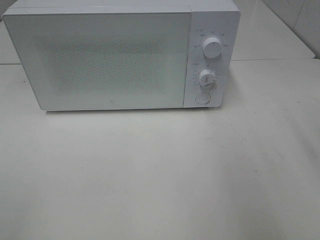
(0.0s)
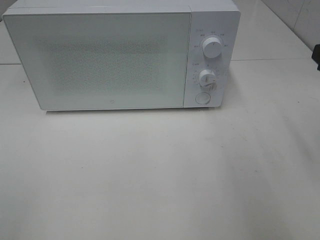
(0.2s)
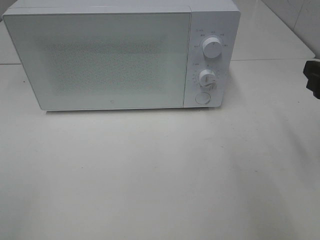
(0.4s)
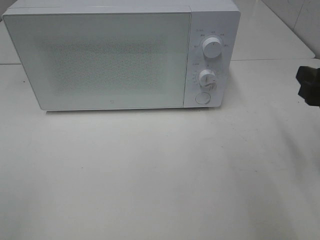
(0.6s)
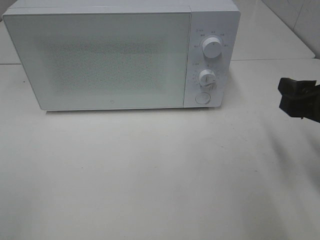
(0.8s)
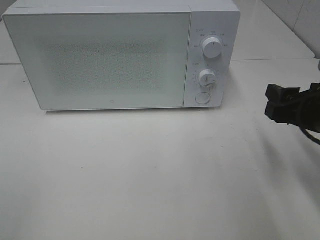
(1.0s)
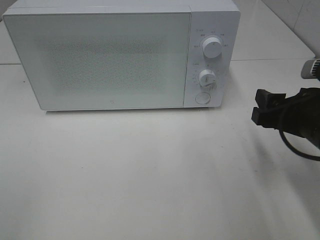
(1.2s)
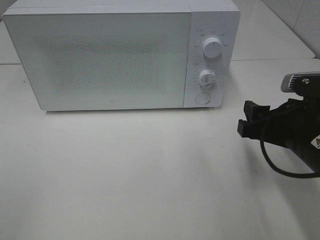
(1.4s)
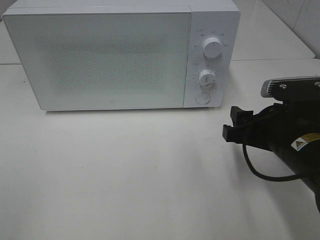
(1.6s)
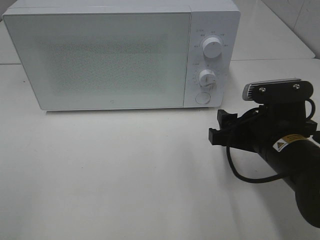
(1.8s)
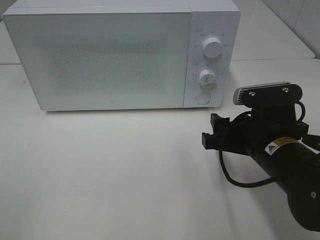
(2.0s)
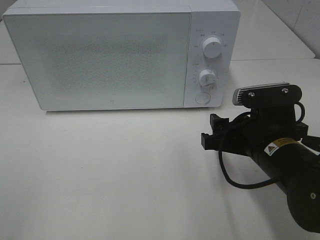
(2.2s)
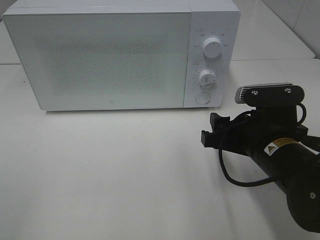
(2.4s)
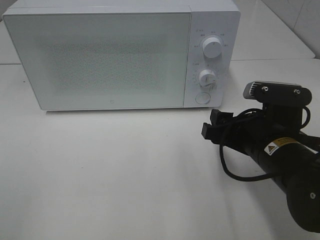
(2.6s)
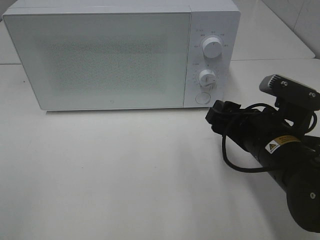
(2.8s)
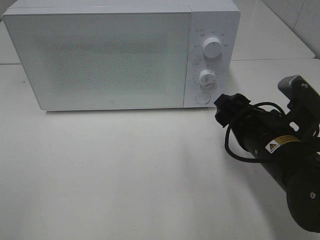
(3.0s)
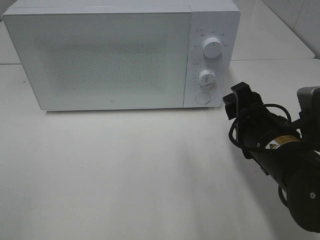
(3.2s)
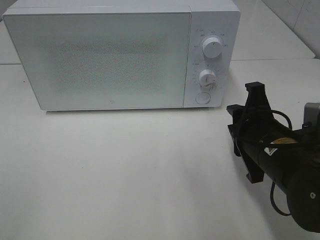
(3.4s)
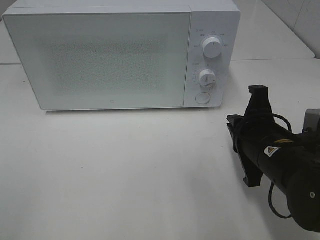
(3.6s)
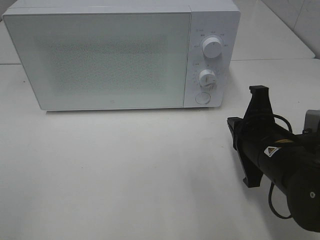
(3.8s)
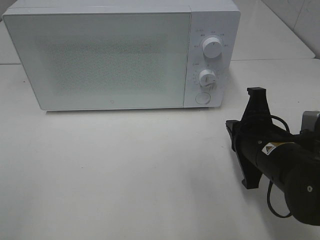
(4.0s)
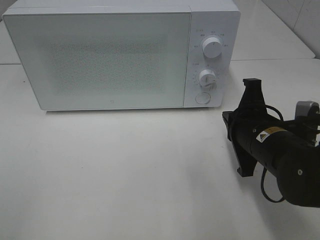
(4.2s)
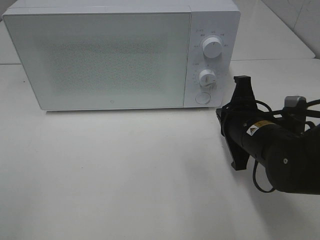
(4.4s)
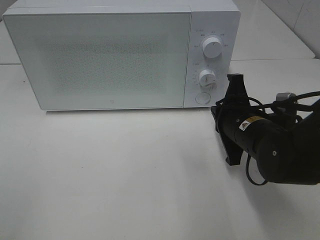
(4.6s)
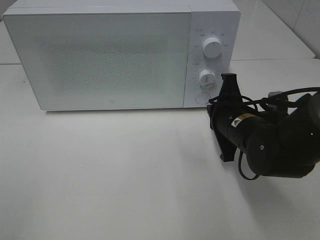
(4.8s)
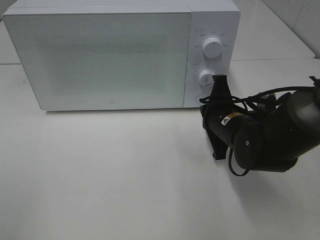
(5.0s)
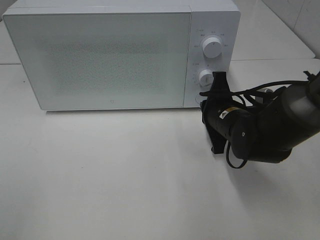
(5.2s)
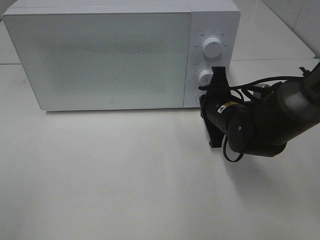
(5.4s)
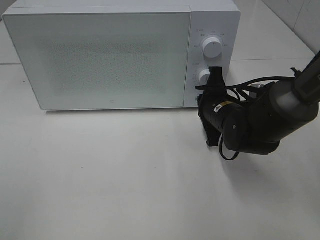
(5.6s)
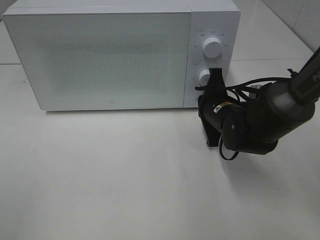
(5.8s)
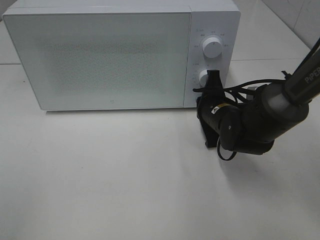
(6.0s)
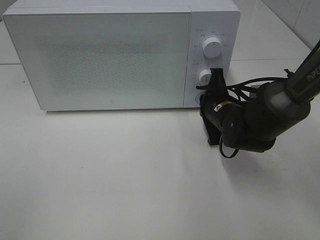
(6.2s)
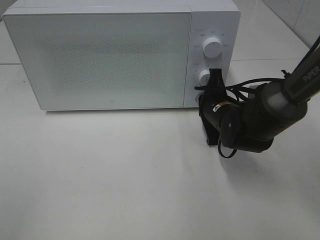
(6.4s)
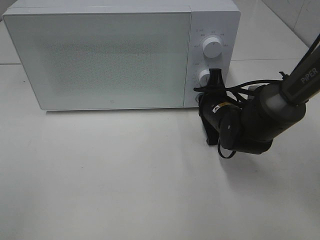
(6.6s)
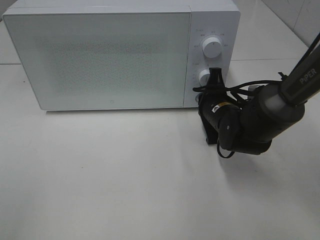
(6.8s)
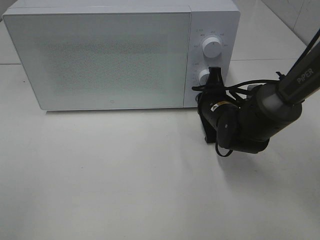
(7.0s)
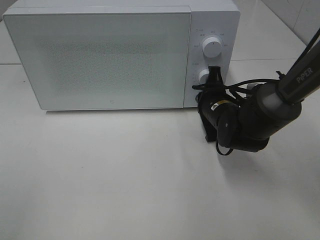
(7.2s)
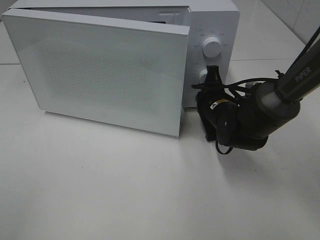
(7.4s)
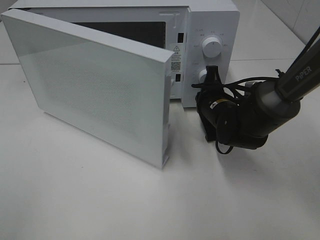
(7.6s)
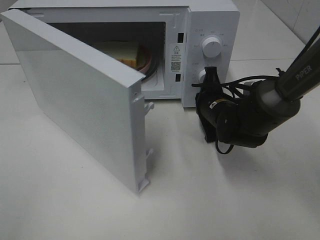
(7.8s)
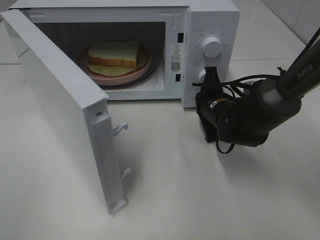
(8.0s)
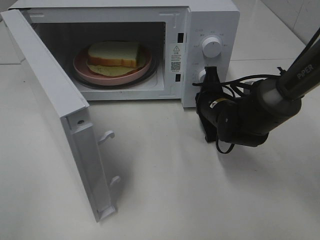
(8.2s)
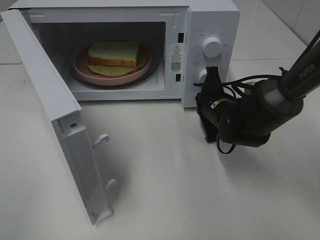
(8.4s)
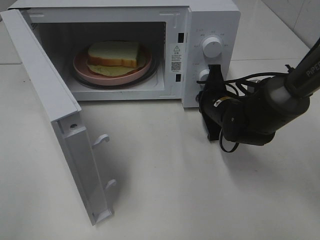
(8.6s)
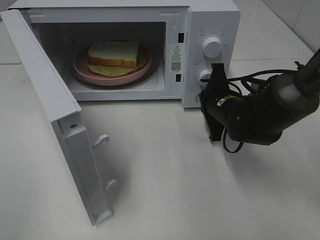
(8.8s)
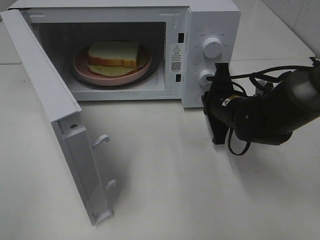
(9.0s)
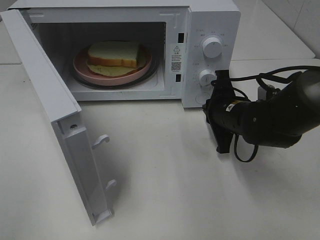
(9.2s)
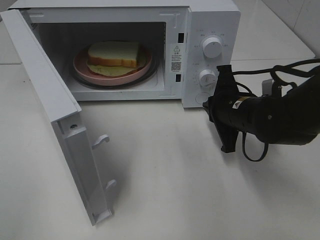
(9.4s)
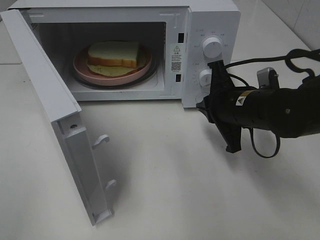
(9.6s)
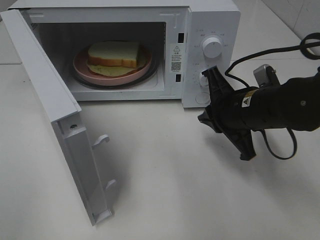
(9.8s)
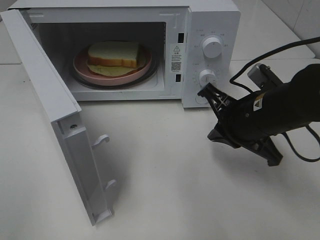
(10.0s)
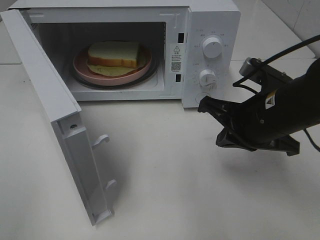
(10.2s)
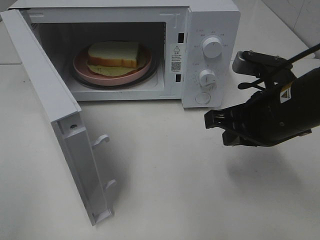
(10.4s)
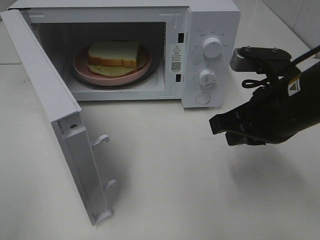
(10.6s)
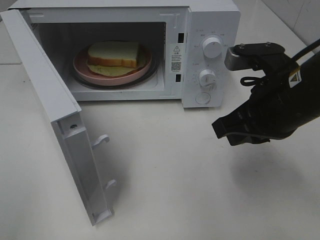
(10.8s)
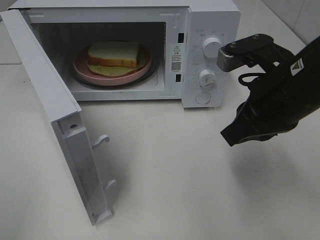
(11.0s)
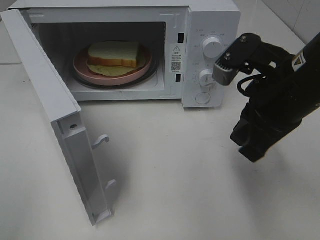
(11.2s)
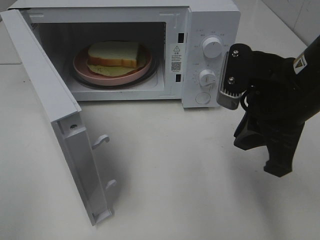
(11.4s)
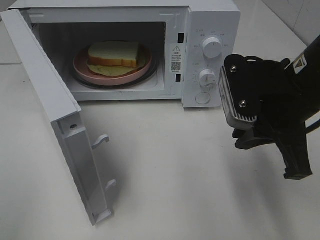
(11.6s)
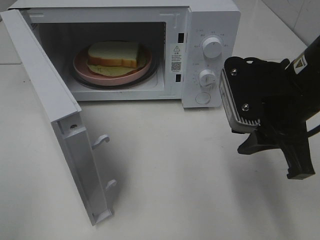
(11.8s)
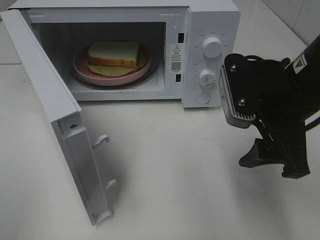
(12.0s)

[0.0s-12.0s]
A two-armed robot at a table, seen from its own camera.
Task of the whole recording: Heat Sandwich.
Step, 0.0s to 9.2s: Right hand: press the switch.
0.0s to 1.6s: The right gripper travels downward and to the left by some 15 cm.
3.0s to 4.4s: The right gripper closes.
4.4s to 6.0s: The right gripper shifts roughly 10 cm forward.
6.0s to 7.6s: There are only small adjustments of the grippers.
9.0s to 10.4s: The right gripper is displaced backward and upward by approximately 15 cm.
10.4s to 12.0s: The right gripper opens.

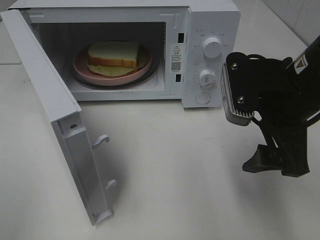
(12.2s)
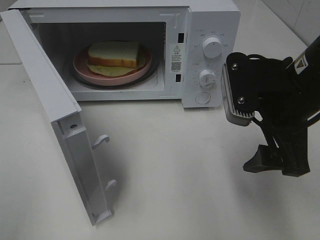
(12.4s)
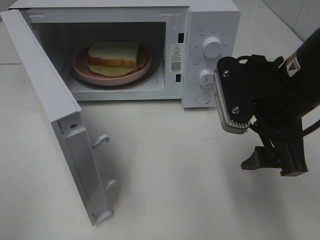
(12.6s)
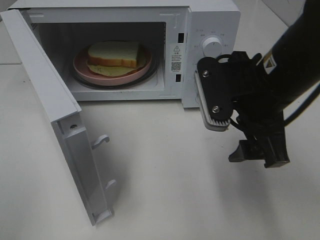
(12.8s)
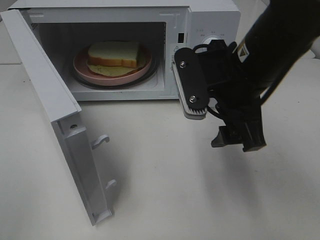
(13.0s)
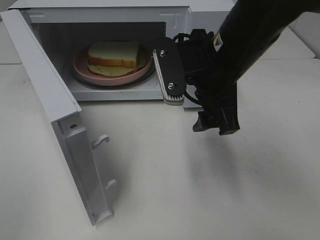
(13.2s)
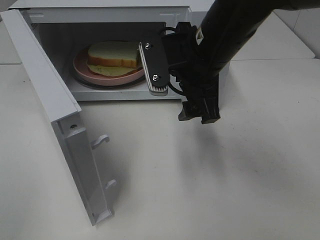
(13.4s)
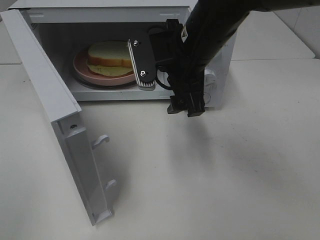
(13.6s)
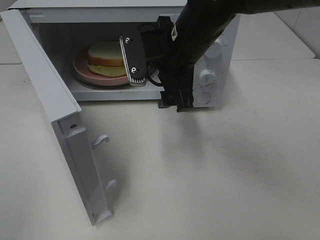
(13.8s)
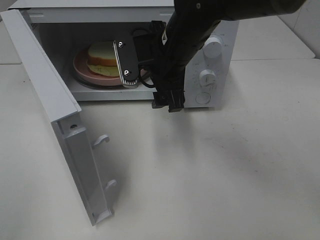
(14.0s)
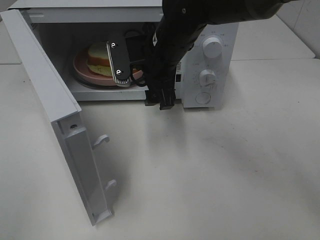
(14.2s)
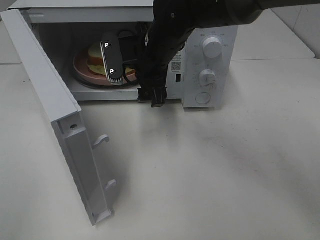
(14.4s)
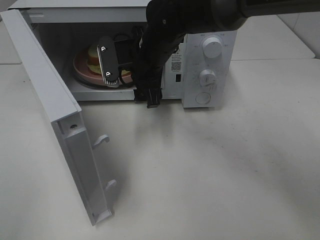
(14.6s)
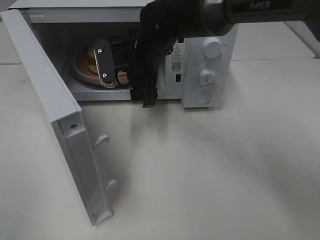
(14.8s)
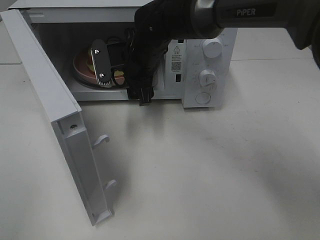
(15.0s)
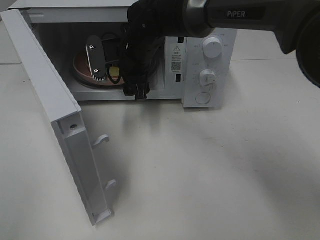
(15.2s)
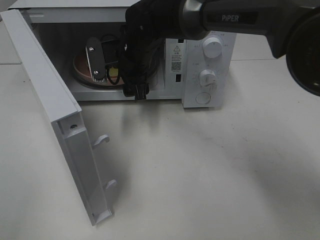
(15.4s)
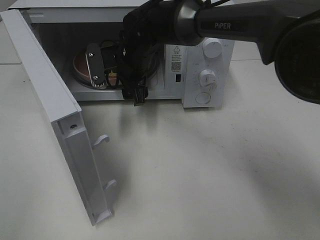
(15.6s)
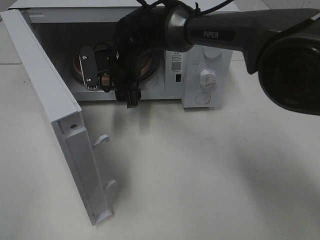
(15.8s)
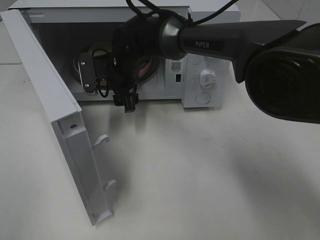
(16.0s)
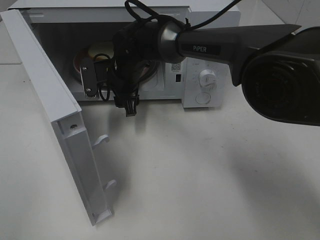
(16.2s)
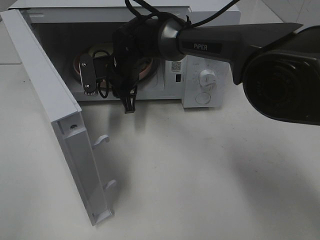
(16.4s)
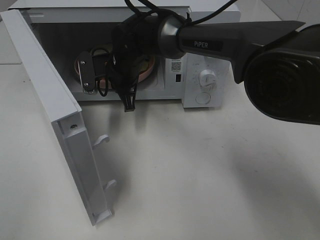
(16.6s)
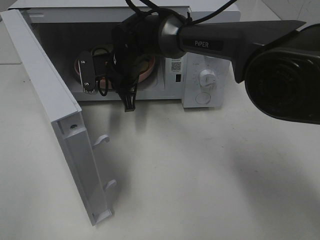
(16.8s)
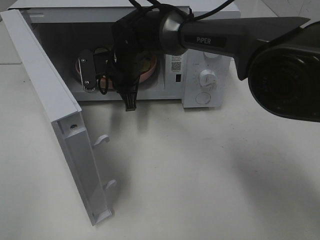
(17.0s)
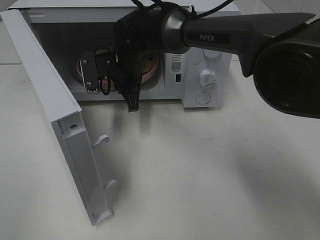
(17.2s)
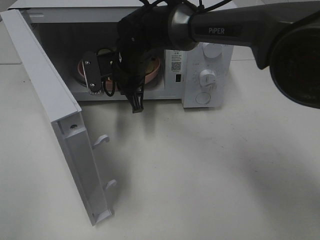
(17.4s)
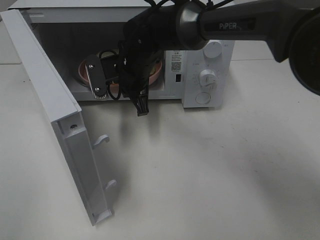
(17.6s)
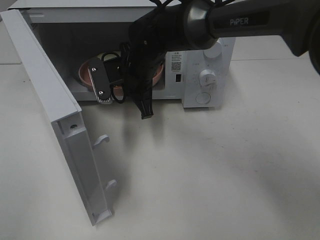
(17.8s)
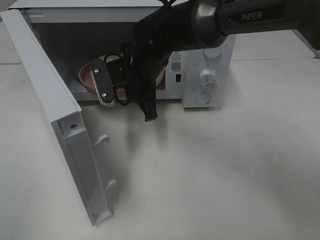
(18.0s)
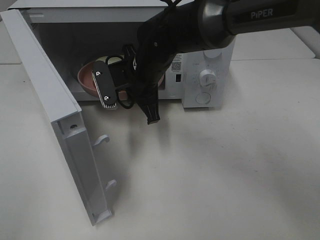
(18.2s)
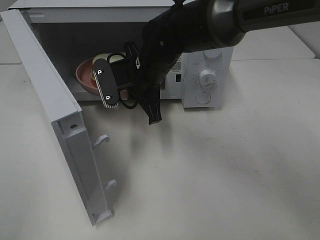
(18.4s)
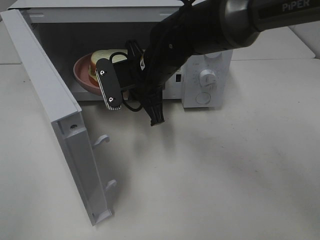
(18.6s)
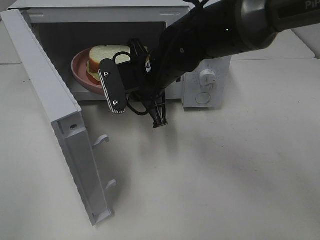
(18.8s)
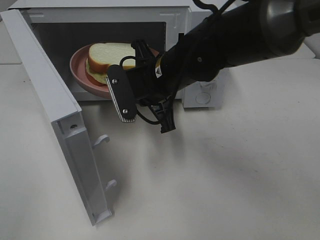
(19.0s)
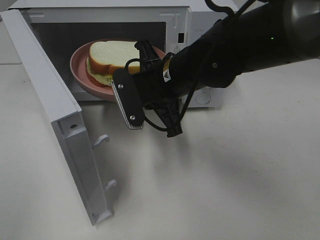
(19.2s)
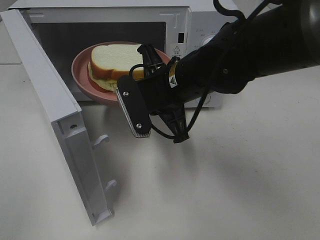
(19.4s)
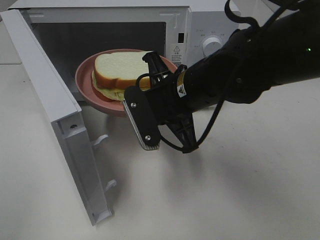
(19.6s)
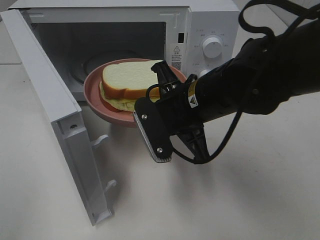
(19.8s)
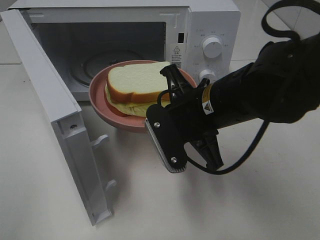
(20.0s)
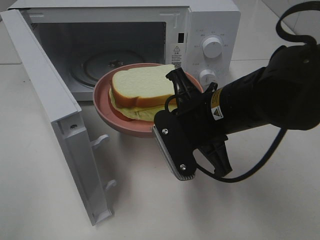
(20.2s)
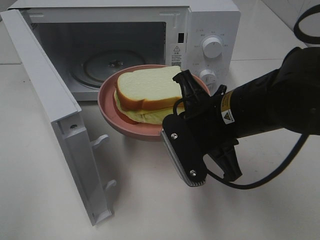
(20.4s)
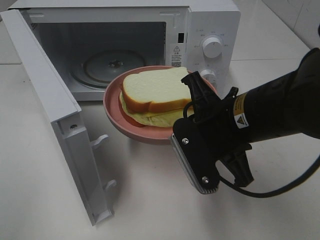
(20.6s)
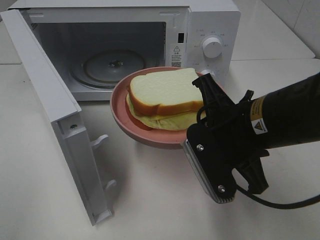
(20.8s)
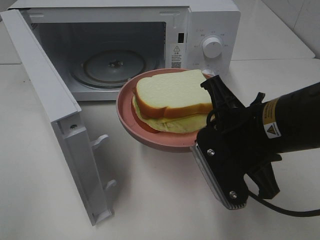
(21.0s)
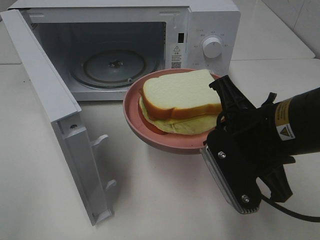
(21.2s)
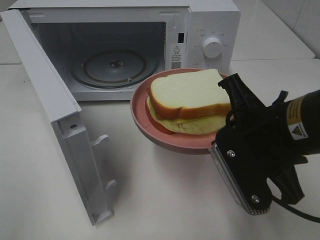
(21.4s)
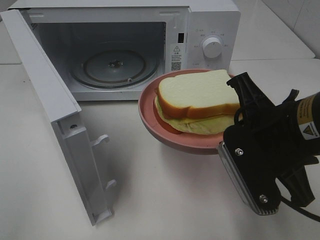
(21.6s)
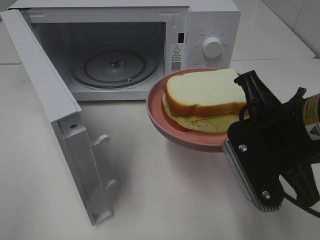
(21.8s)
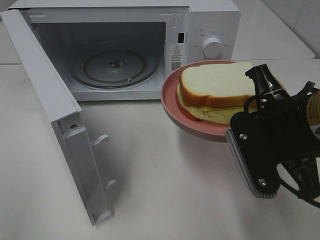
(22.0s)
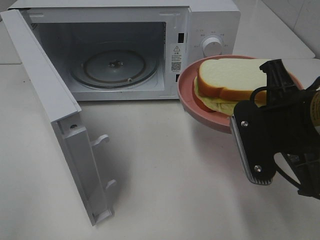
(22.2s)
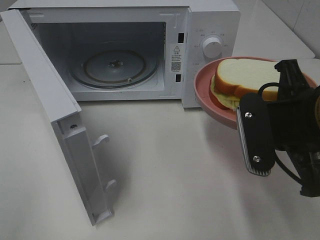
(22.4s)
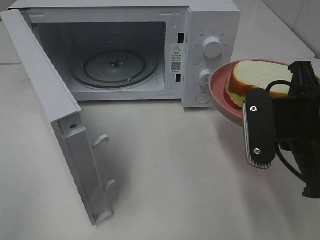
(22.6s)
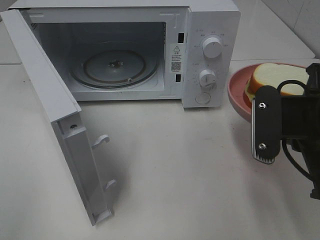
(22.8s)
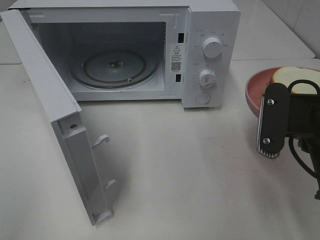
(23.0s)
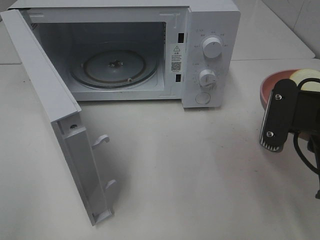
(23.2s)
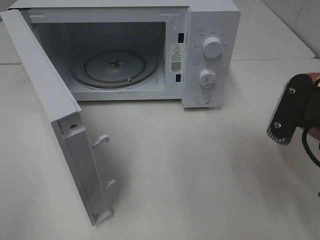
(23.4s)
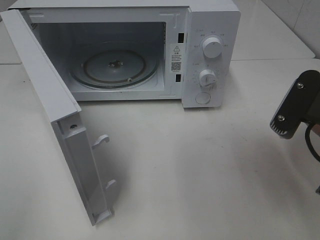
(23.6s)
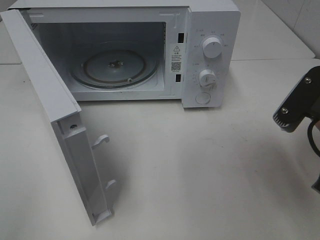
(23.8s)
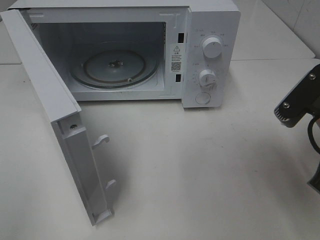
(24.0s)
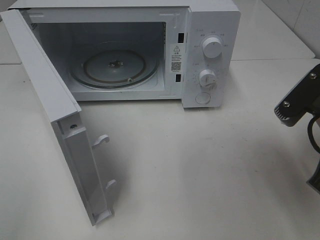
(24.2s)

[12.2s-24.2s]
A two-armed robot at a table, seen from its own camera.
Task of the whole recording: Heat Sandwich.
Step, 12.2s to 17.0s: Right hand: grab the plate with the sandwich.
12.2s to 13.8s: The right gripper heads to the left and forward, covering roughly 15 cm.
13.8s to 15.2s: The right gripper shifts about 10 cm forward, to the left and downward.
15.2s to 16.6s: The right gripper moves about 5 cm, and closes up.
16.6s to 18.2s: The right gripper is displaced backward by approximately 5 cm.
18.2s to 19.8s: The right gripper moves backward and to the right, some 15 cm.
19.8s to 21.2s: The right gripper moves to the right and backward, roughly 10 cm.
